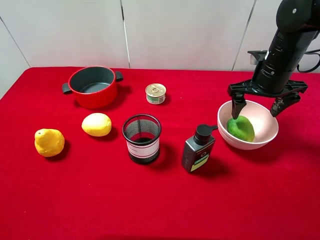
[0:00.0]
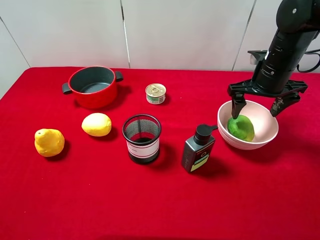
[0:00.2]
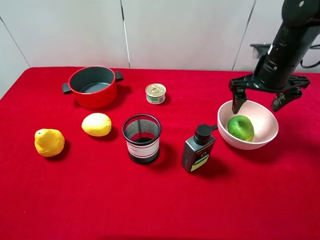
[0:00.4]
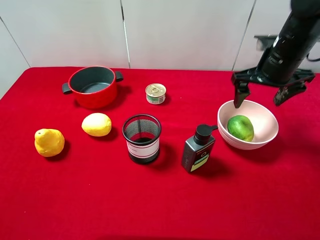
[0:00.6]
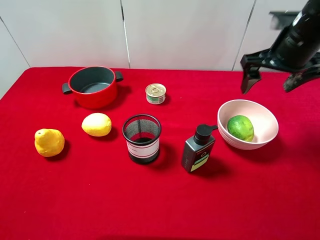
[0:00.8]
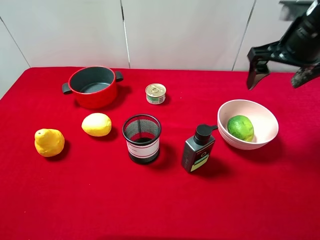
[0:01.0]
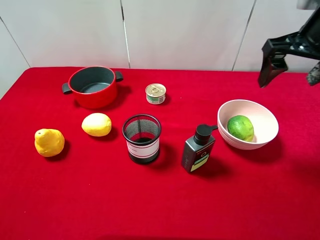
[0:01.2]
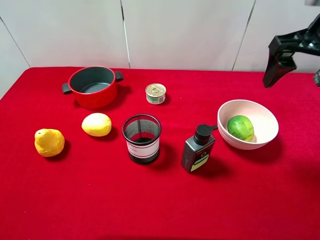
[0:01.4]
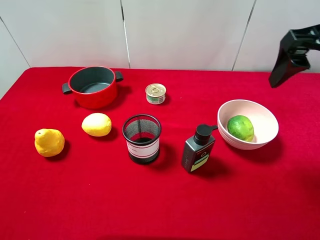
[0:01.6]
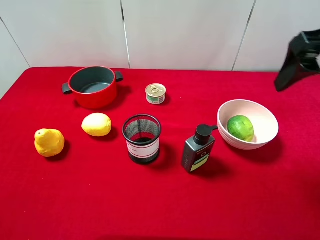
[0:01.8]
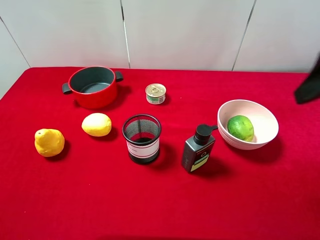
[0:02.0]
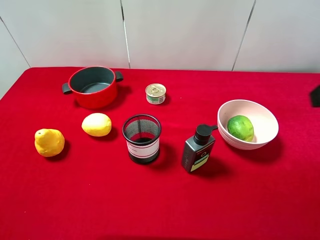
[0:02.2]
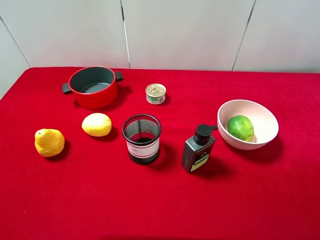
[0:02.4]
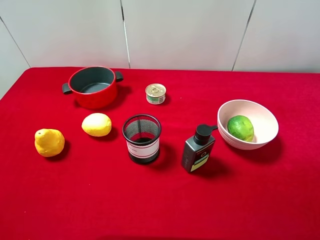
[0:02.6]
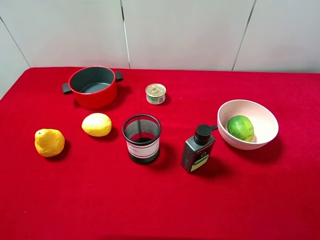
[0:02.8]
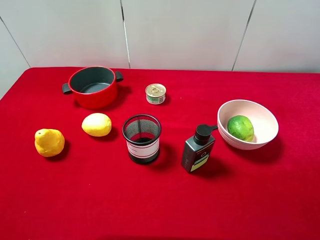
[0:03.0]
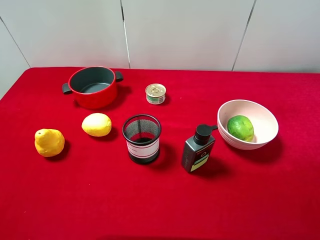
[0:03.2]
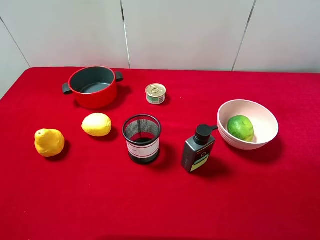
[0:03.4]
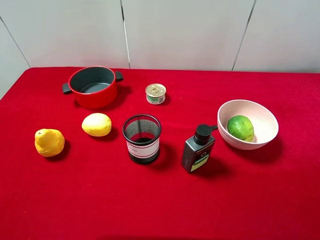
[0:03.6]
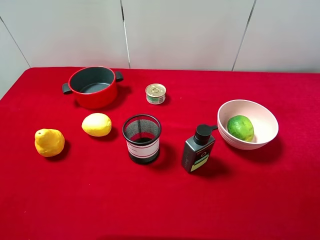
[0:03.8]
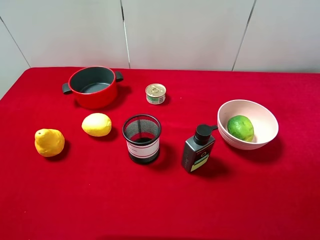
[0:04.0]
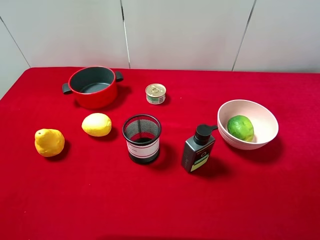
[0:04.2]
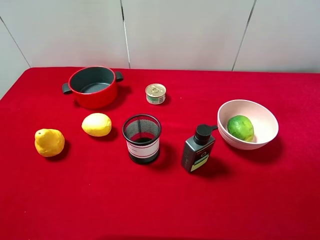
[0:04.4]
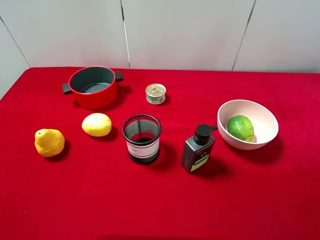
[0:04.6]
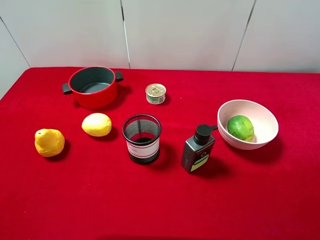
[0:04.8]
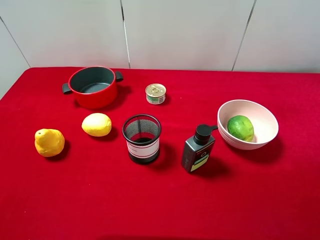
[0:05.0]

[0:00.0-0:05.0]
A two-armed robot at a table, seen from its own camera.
Task of the whole recording: pick up an item with a gripper and place it in a random container on the desktop.
0:00.0 to 0:01.6: The right gripper is displaced upward and backward by some 20 cm.
0:01.6 to 0:03.4: The right gripper travels backward by some 25 cm.
